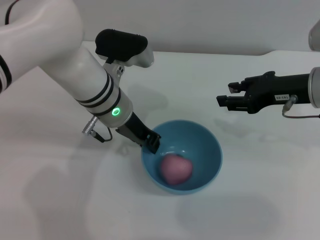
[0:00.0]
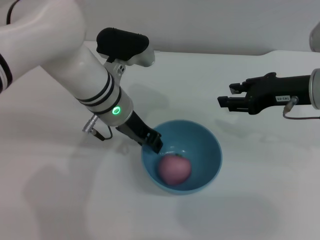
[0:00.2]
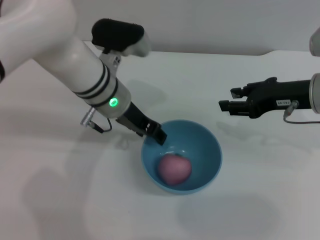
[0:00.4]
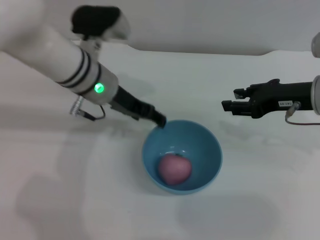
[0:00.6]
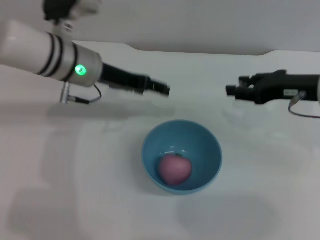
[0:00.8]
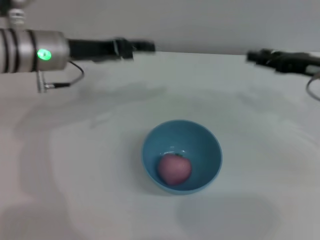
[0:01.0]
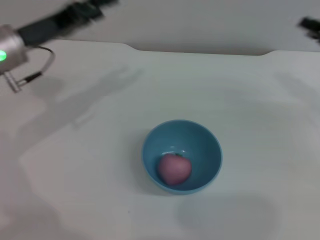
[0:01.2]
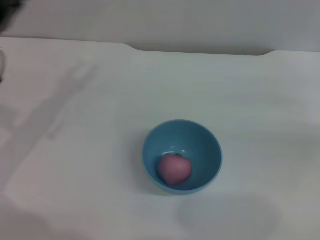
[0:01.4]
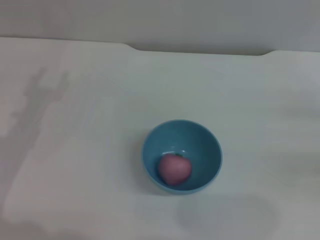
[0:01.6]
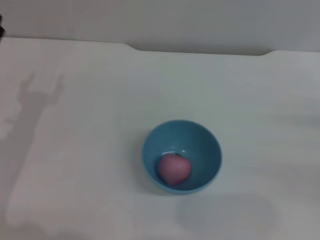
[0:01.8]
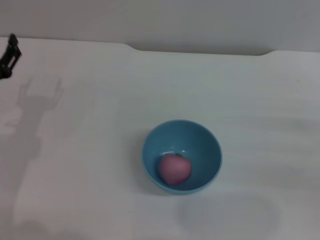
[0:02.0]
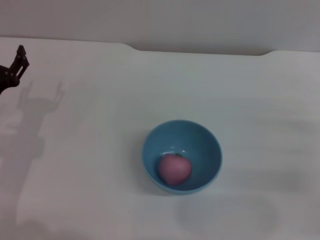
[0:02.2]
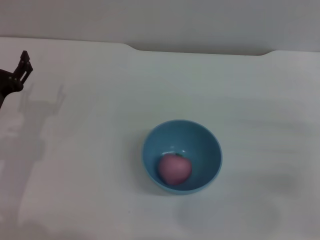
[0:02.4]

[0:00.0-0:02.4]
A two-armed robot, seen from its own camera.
Task of the whole recording: put the peach into the blue bowl and pour it out repeatedly.
Step, 0:00.0 to 0:00.6: Place the bowl on the table.
0:00.0 to 0:01.2: The left gripper shifts approximately 15 cm to the left, and opens; the right gripper heads to the right, covering roughly 10 cm.
0:01.2 to 0:02.4: The right gripper travels backward and downward by roughly 10 cm. The left gripper goes about 15 cm downward and backward.
